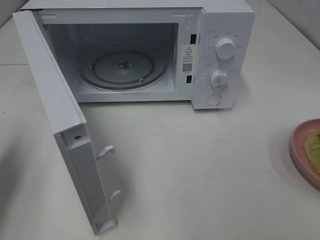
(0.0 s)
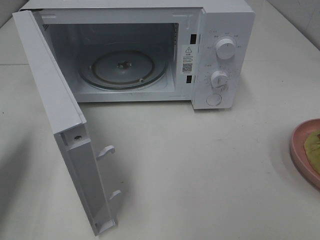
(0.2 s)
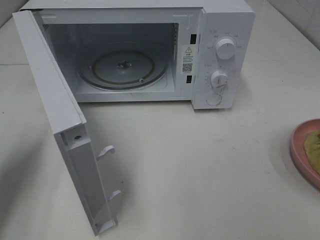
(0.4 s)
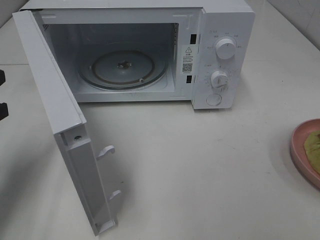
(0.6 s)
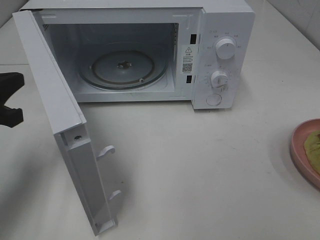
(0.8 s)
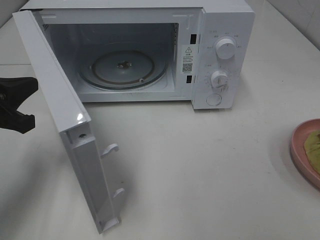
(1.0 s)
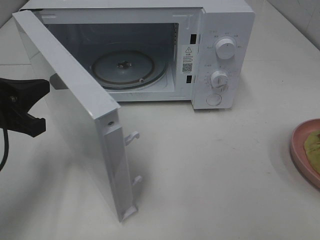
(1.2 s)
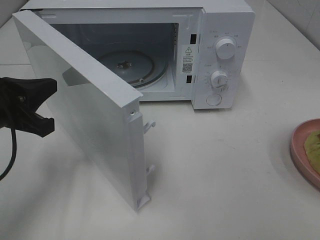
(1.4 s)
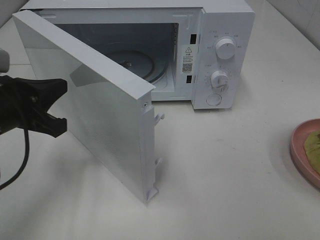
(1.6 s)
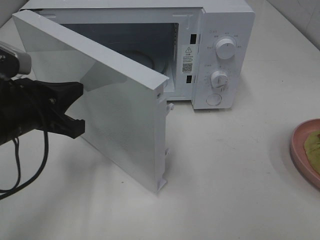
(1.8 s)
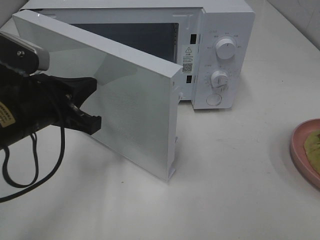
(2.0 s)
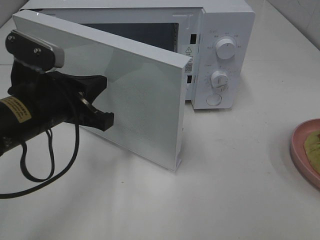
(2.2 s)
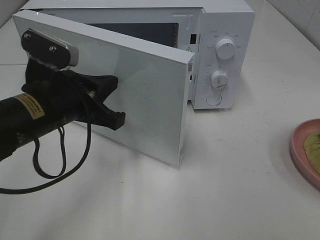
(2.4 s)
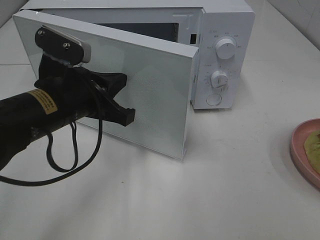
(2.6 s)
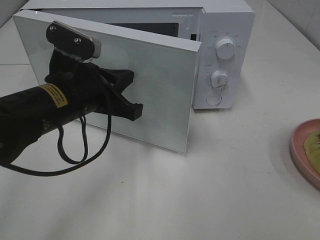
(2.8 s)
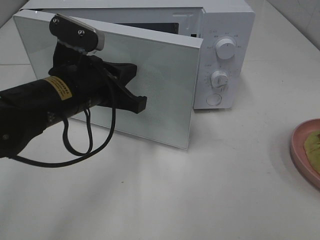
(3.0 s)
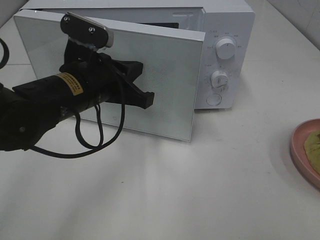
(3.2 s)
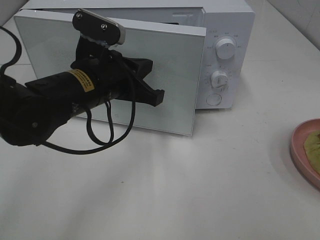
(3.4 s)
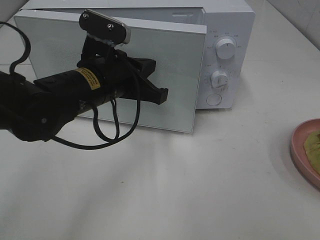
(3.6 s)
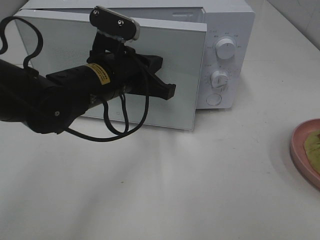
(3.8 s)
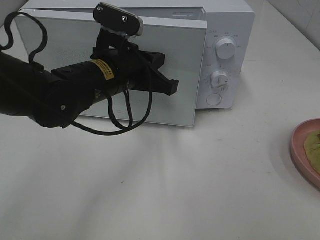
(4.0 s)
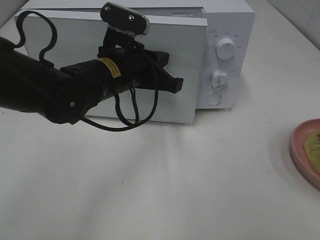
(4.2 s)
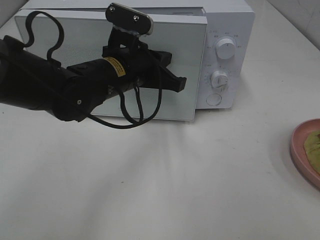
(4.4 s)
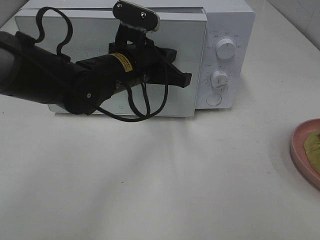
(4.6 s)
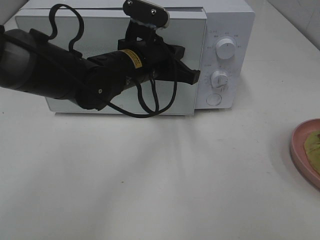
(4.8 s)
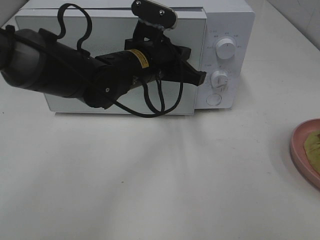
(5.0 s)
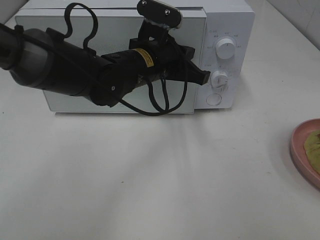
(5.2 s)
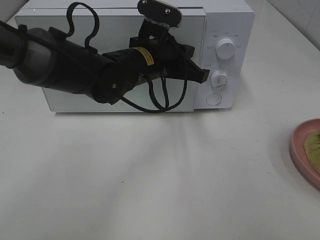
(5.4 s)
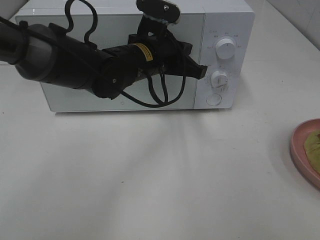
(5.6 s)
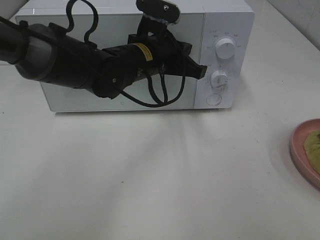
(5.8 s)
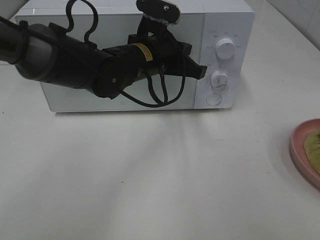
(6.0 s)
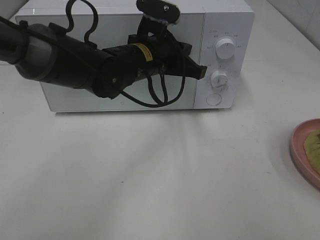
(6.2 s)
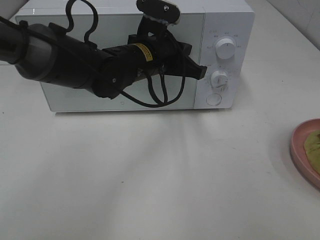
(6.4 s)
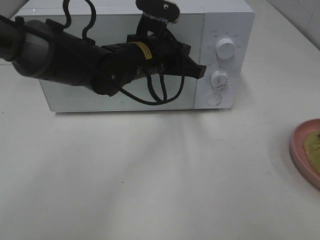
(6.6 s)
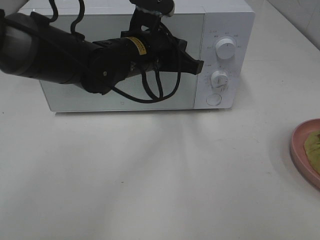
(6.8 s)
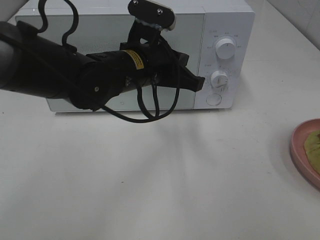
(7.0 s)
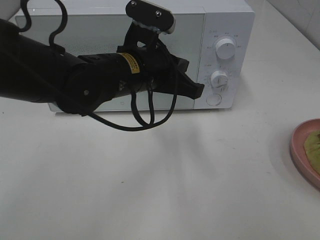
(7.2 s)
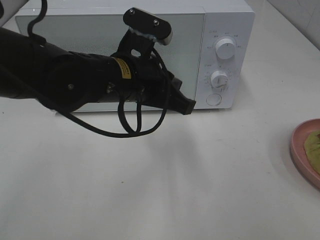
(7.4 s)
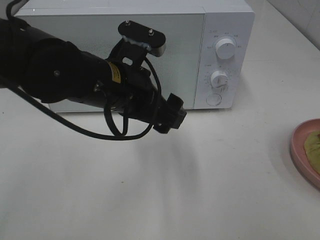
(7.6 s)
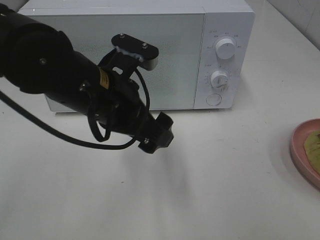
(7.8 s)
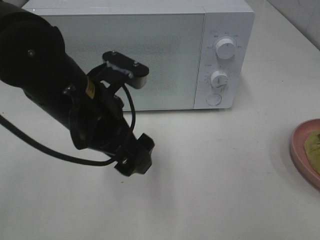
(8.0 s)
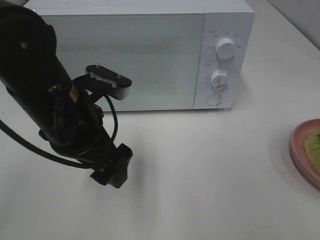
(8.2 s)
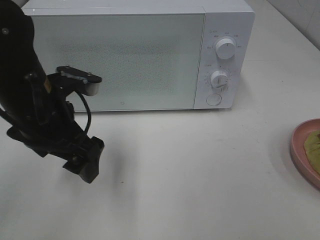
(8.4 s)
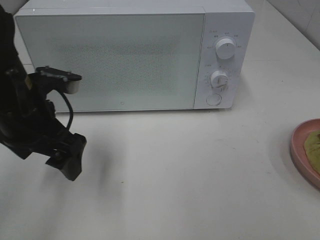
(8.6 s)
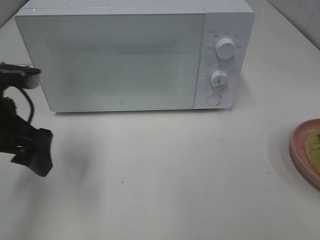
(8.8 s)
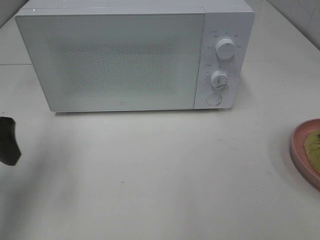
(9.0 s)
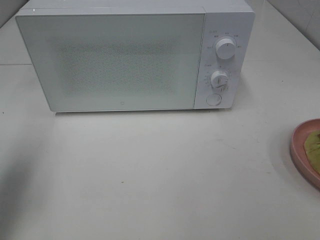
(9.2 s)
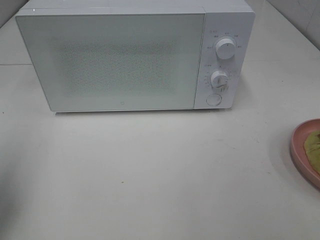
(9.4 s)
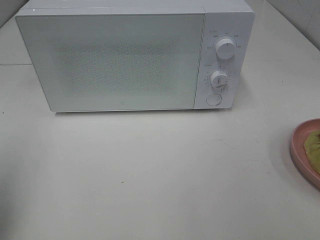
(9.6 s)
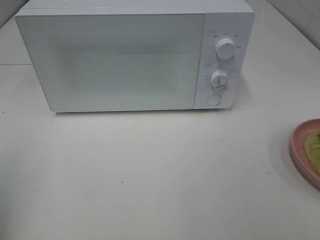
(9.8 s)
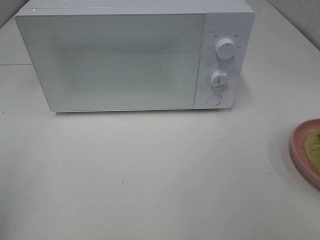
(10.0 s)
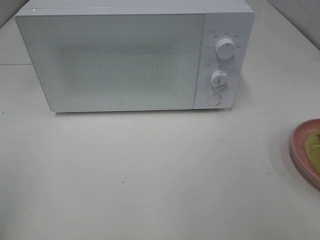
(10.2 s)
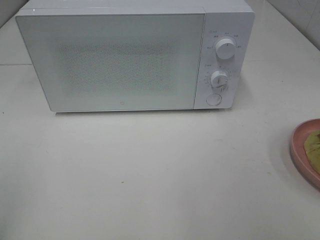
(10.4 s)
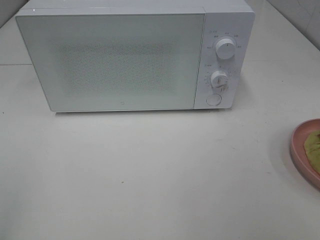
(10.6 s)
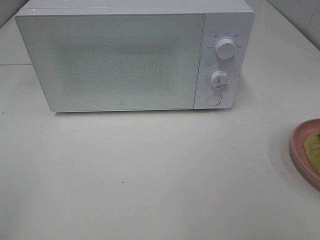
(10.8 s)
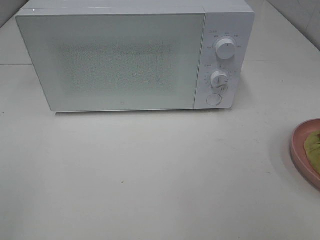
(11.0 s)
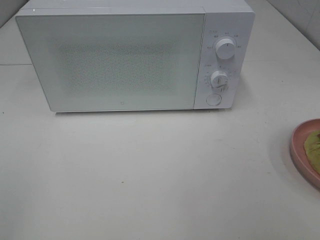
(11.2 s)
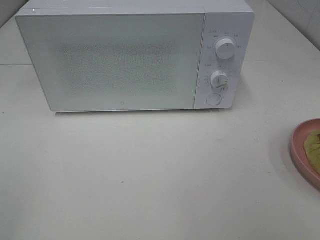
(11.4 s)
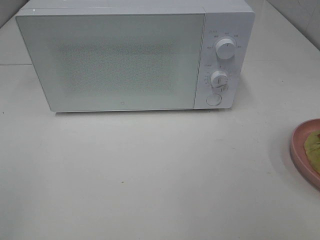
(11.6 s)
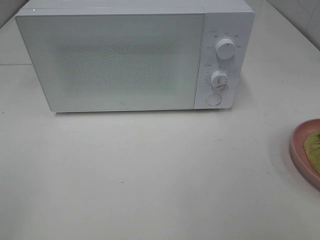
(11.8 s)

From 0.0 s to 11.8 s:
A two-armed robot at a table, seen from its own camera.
Task of the whole recording: Heat Sandwich.
Step, from 0.0 s to 7.2 s: Left hand: close the microwave door.
From 0.0 s to 1.4 s: The left gripper moves to the right, roughly 10 cm.
From 1.4 s to 3.0 s: The left gripper heads to the right, covering some 10 cm.
From 3.0 s to 4.4 s: The left gripper is displaced to the right and forward by some 10 cm.
From 4.4 s to 6.0 s: The left gripper shifts by some 5 cm.
From 6.0 s to 7.4 s: The left gripper goes roughly 10 cm backward.
From 7.4 s to 8.8 s: The left gripper is displaced to the left by about 20 cm, and opens up.
From 8.8 s to 10.4 s: The left gripper goes roughly 25 cm backward and to the left.

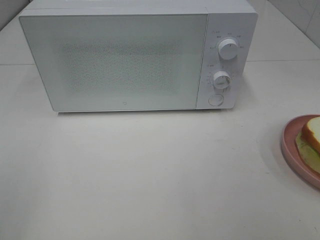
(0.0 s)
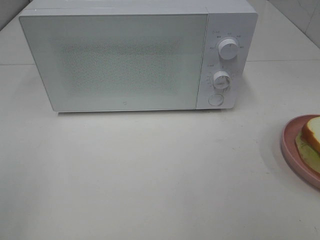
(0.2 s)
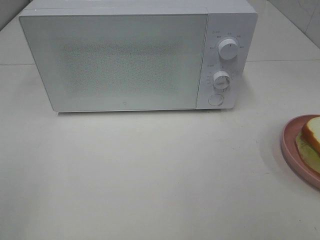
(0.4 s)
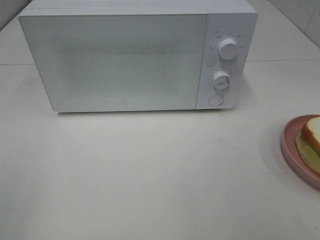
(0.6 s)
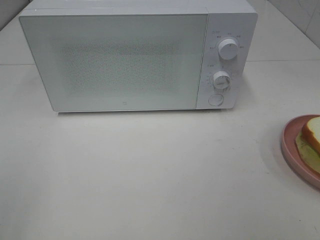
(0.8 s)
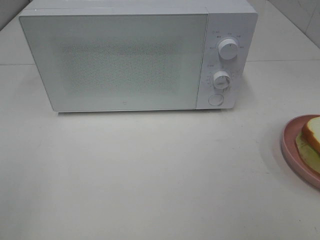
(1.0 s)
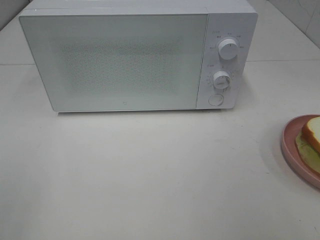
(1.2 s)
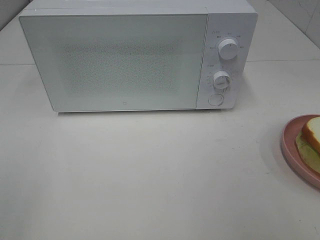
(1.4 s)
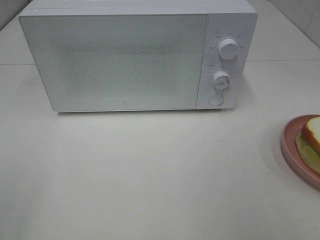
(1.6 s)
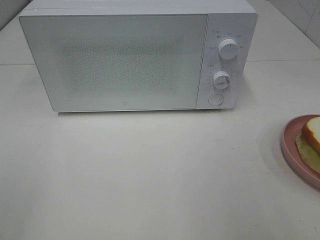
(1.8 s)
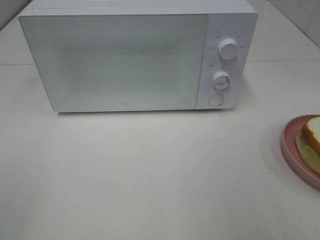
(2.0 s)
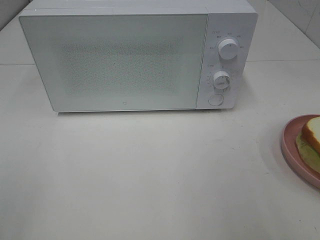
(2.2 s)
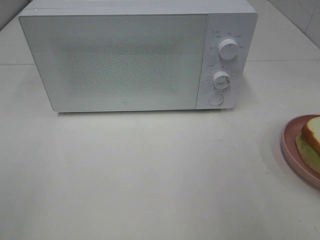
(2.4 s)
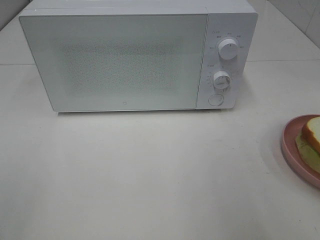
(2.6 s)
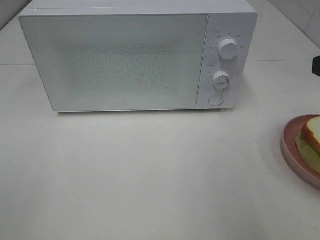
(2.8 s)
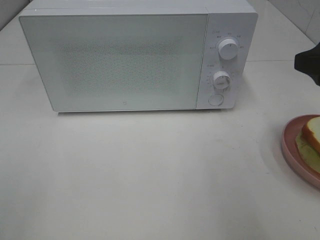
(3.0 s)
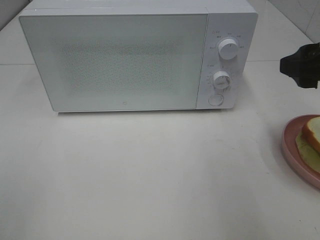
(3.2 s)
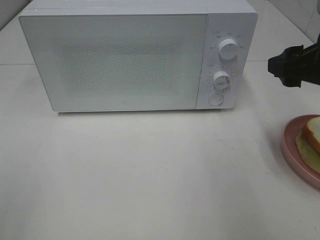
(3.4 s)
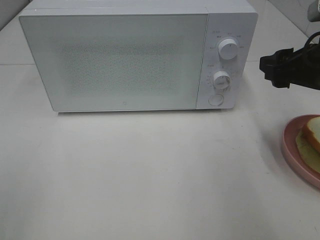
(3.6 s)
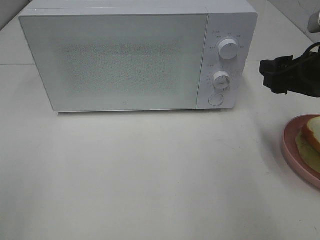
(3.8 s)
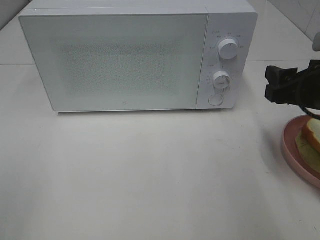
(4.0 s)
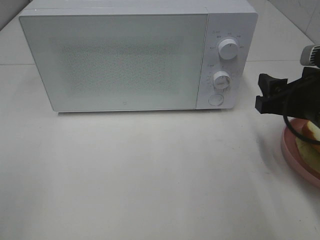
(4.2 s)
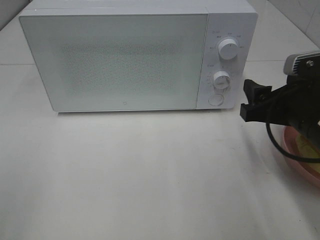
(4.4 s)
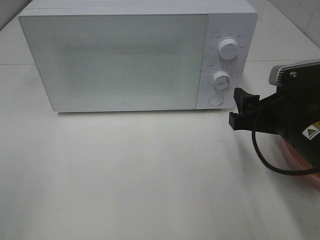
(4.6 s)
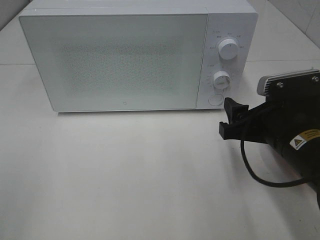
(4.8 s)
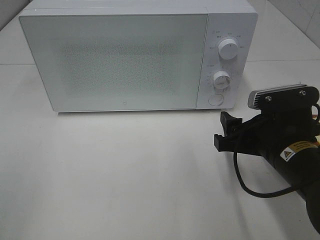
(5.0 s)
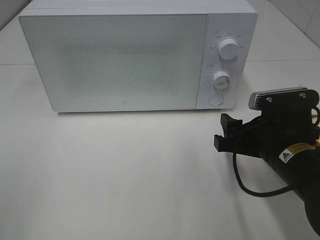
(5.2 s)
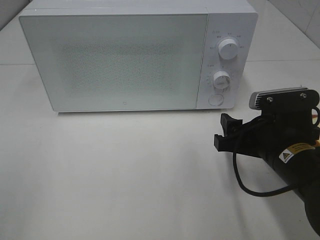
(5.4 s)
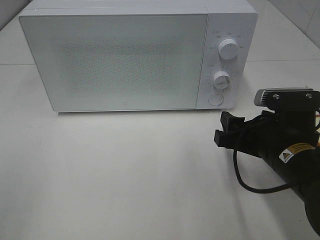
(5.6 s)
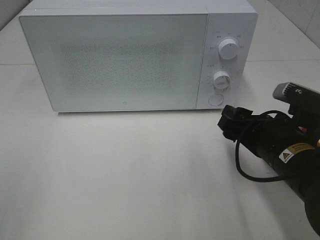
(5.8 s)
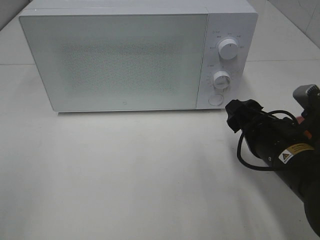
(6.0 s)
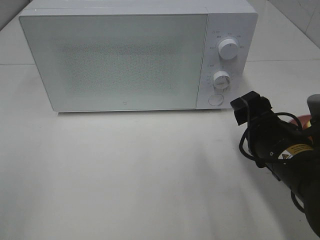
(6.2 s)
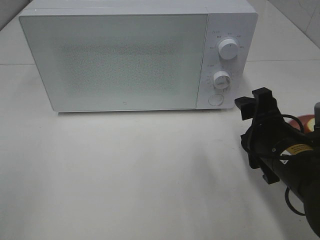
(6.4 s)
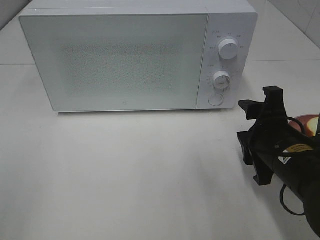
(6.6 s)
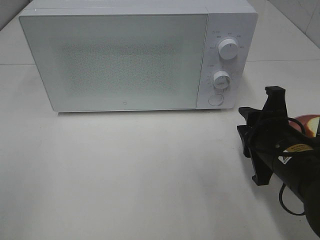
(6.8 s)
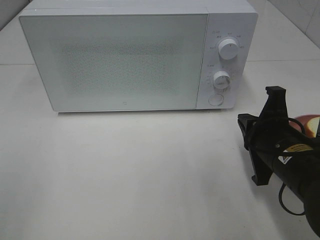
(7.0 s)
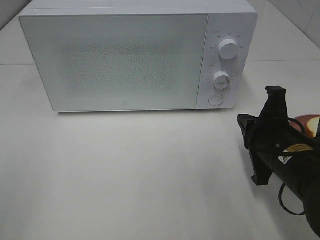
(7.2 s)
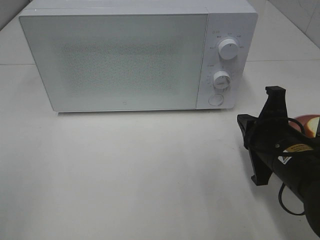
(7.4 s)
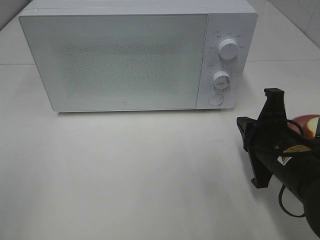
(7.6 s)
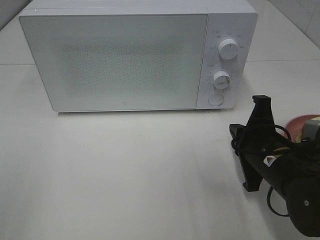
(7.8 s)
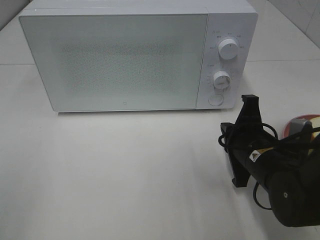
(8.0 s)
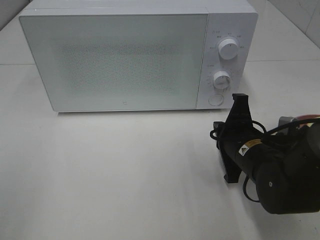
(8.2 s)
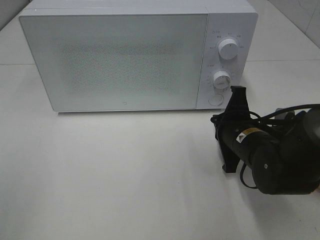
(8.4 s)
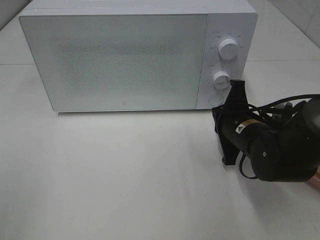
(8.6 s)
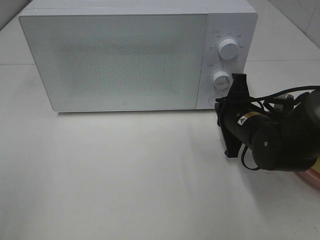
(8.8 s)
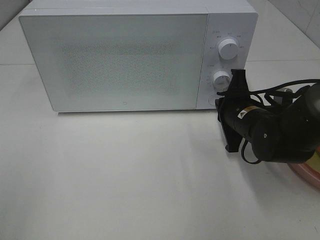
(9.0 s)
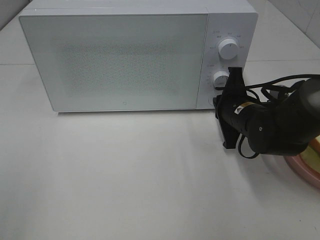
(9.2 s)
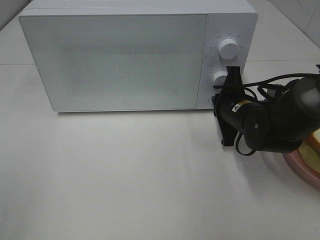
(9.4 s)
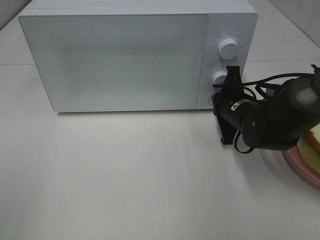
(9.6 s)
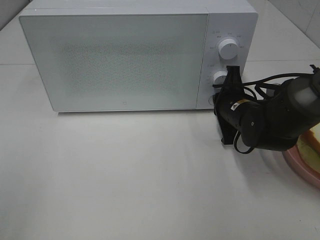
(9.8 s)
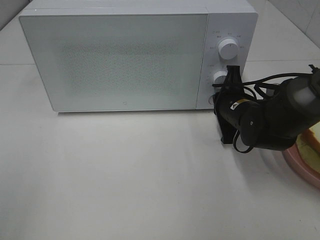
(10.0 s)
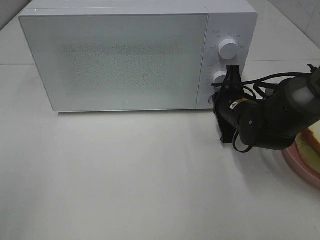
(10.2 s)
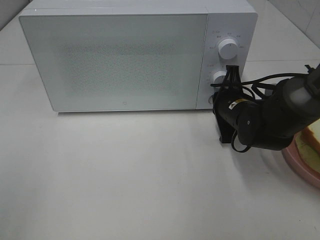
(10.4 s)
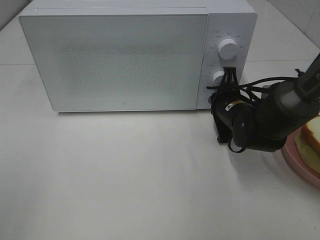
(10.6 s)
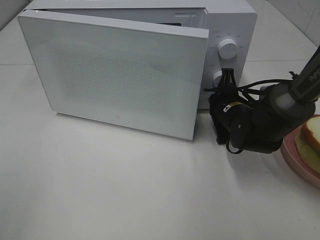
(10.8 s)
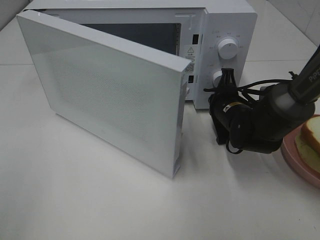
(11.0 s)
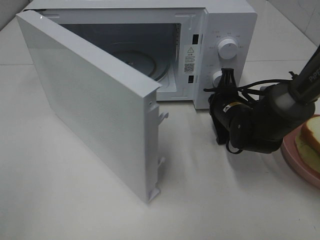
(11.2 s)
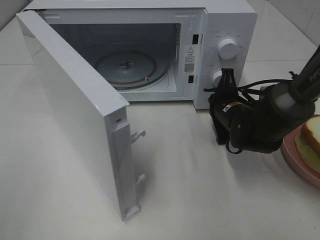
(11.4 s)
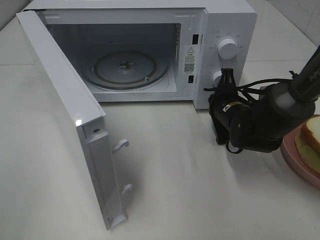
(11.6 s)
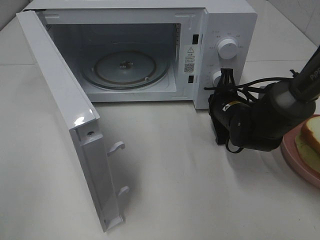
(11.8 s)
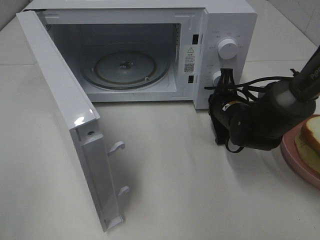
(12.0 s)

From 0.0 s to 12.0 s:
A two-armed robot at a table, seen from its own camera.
Task of the whole recording: Heat Sandwich.
From 1.6 s to 3.0 s: The right gripper goes some 15 cm forward.
From 3.0 s to 4.4 s: The right gripper is displaced downward by about 10 cm.
From 4.4 s to 6.0 s: The right gripper changes place by roughly 5 cm.
From 6.0 s to 7.6 s: The right gripper closes its fingers.
From 7.6 s to 9.0 s: The right gripper shifts approximately 10 cm forward.
From 9.0 s to 10.4 s: The grippers make only small movements.
